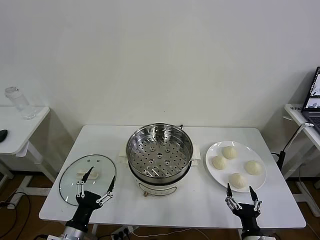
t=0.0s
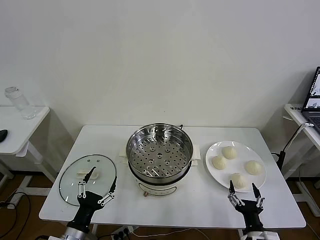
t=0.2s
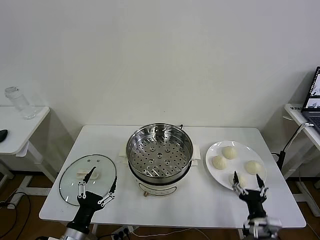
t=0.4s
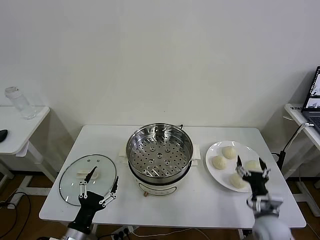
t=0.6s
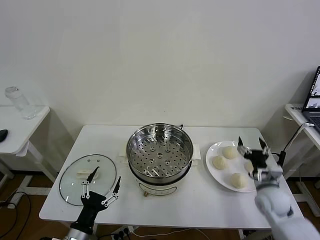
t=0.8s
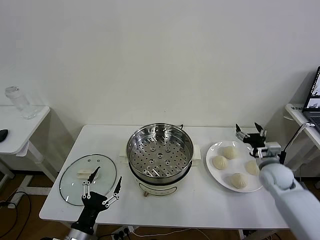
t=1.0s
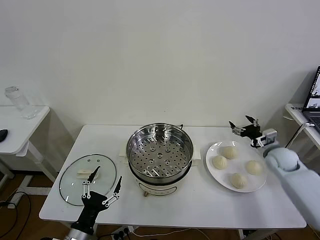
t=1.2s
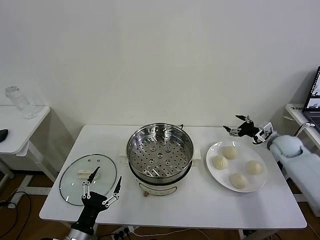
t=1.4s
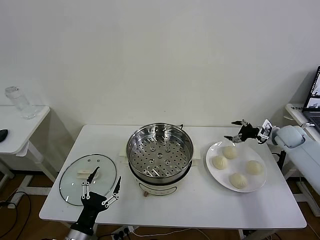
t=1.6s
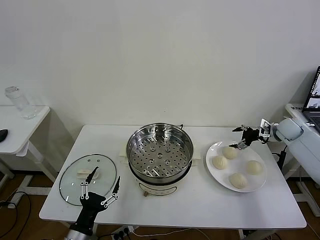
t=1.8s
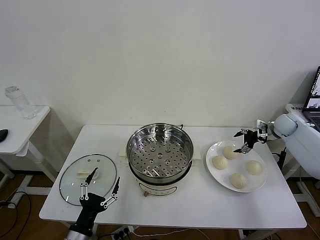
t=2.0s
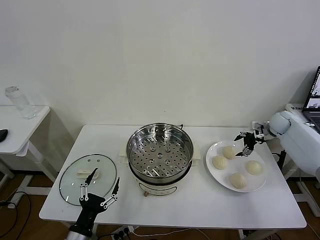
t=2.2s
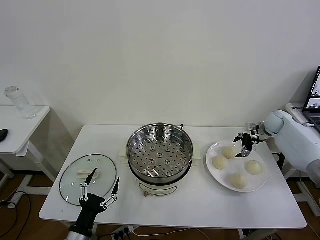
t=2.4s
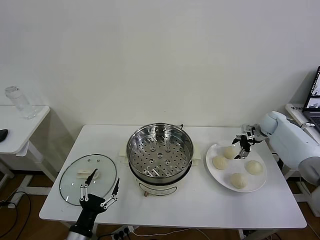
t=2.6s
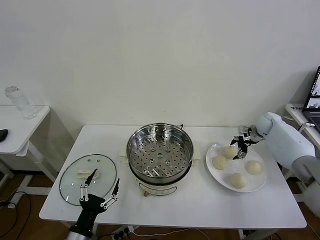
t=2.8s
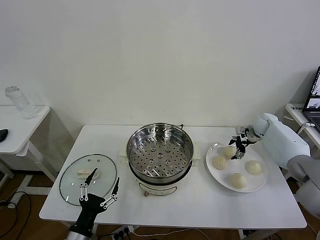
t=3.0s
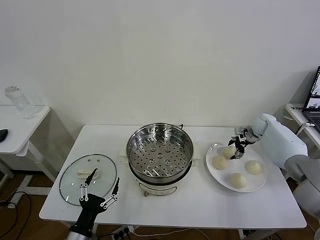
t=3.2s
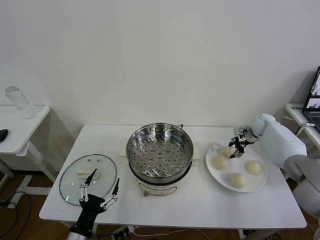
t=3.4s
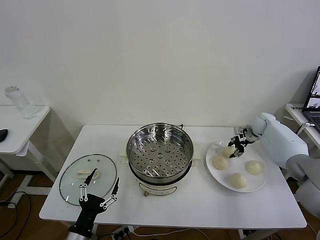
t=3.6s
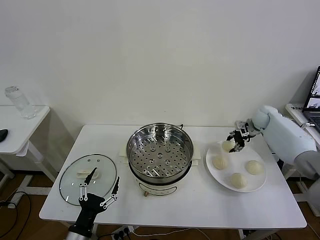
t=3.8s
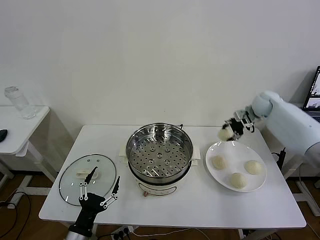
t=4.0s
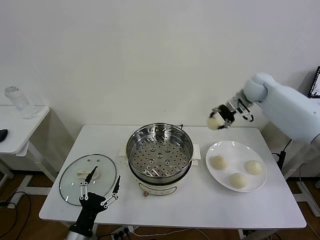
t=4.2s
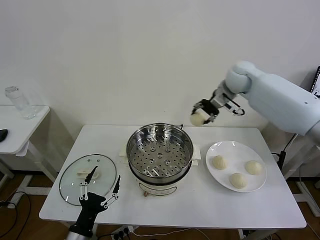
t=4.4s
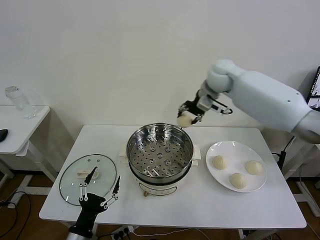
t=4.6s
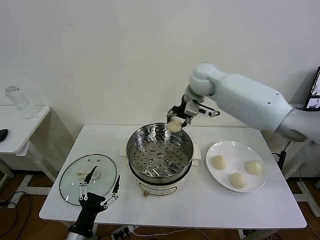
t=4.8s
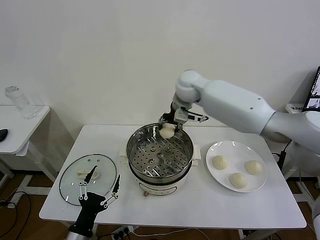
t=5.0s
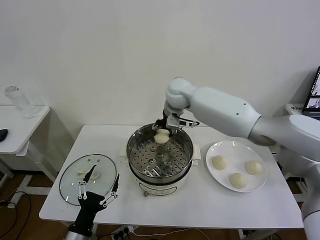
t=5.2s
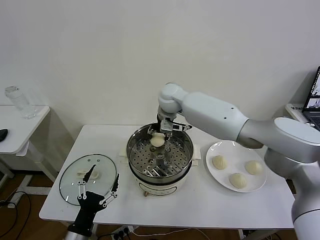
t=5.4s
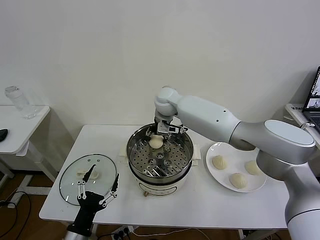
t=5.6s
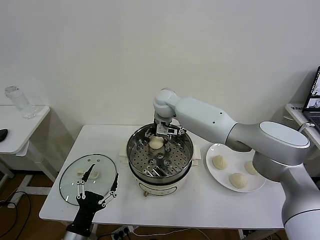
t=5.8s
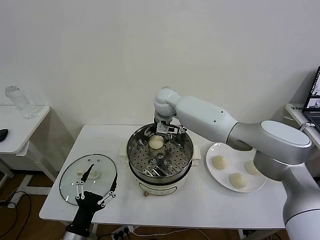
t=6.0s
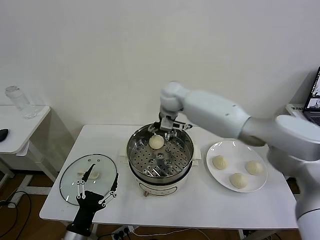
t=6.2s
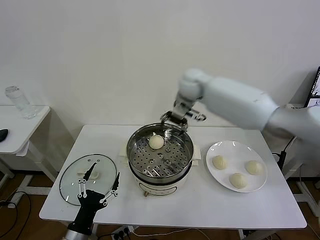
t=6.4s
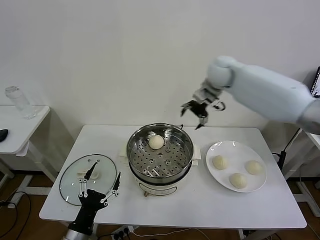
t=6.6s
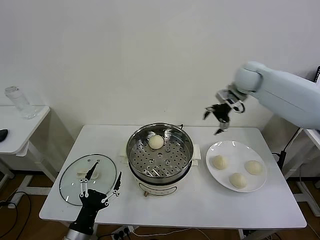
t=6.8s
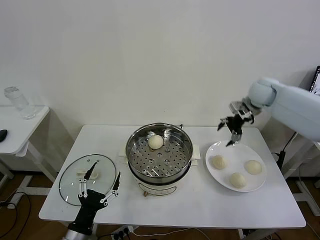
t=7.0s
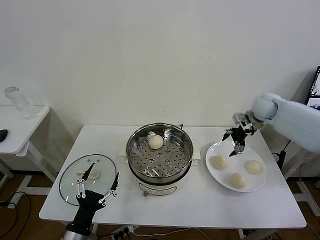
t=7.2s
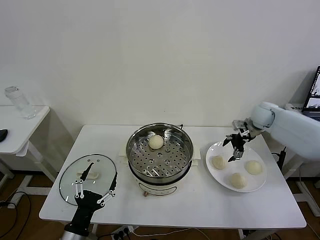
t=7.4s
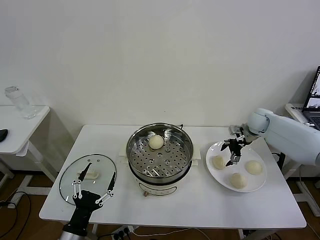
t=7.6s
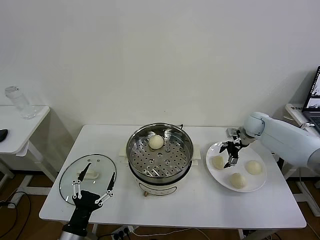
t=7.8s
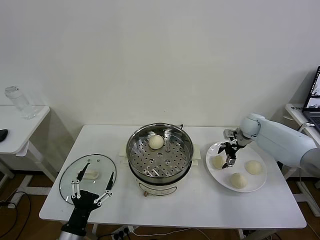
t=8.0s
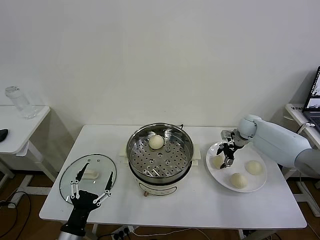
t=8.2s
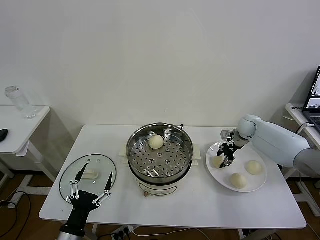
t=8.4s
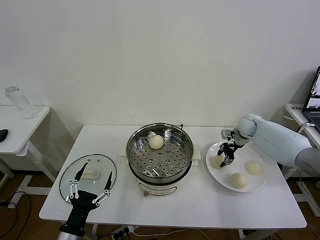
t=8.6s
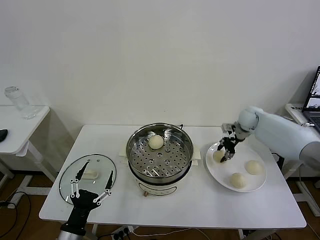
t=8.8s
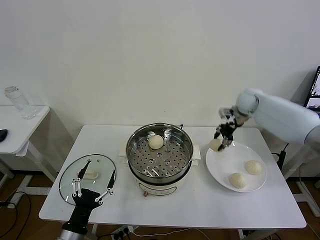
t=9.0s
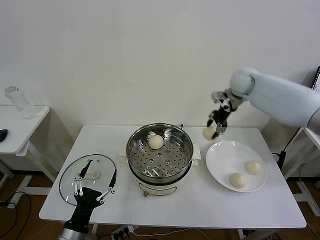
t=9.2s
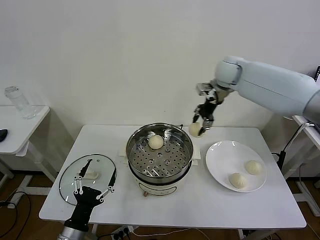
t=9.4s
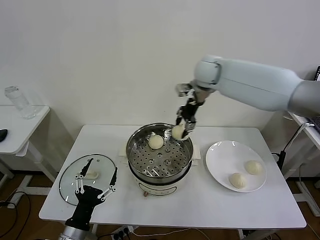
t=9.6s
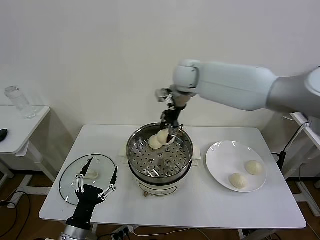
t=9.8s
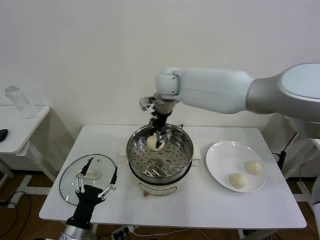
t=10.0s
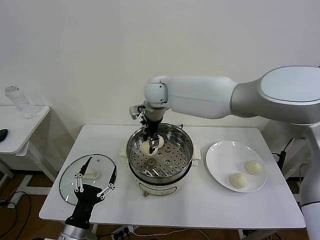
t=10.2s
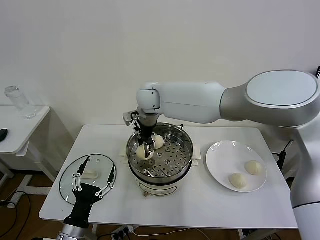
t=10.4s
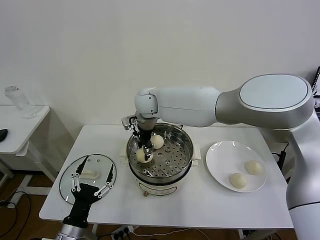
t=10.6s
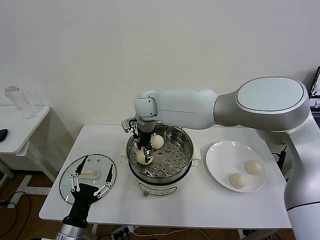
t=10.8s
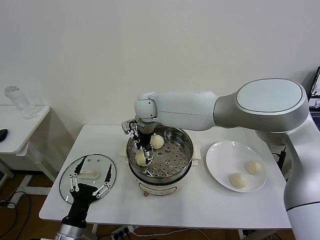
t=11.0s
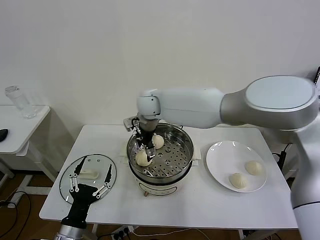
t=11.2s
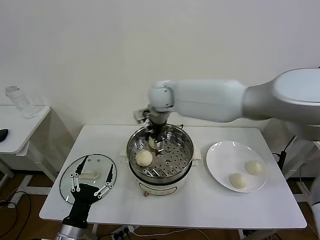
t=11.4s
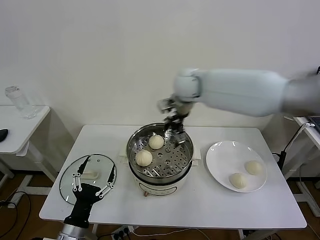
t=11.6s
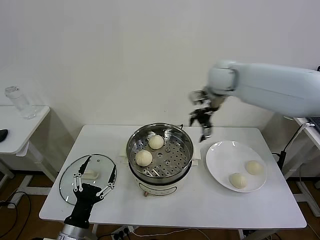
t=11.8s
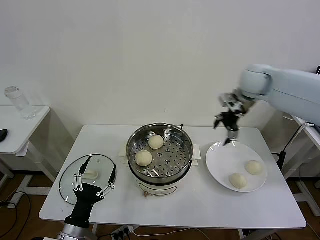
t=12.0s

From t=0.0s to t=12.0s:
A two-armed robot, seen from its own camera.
Task of the whole recording: take steamed baozi put them in steamer then cover it.
Step, from t=0.0s to t=3.4s: Grasp the baozi in the plate with right gripper.
Step, from t=3.6s to t=6.0s: Place the baozi on the steamer with right gripper.
Step, from t=6.2s to t=8.4s: Grasp the baozi in the plate with right gripper.
Step, from t=8.6s to t=11.0s: Place the baozi on the steamer with right gripper.
From t=1.6s to t=3.0s: The right gripper is displaced forward and to the left by roughly 10 cm.
From t=3.0s to t=4.4s: The right gripper is displaced upward and to the left by about 30 cm, and closes up.
From t=4.4s to t=6.0s: The right gripper heads to the left and downward, covering approximately 20 cm, and opens up.
From t=6.0s to t=7.6s: The right gripper heads to the right, covering about 35 cm.
From t=7.6s to t=9.0s: The right gripper goes some 15 cm upward and to the left, and closes.
From t=9.0s to t=10.4s: The right gripper is displaced to the left by about 35 cm.
From t=10.4s to t=12.0s: The right gripper goes about 35 cm to the right, and opens its fingers.

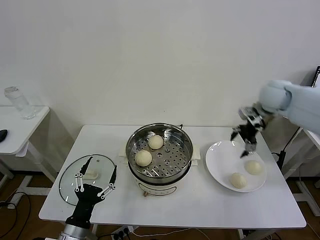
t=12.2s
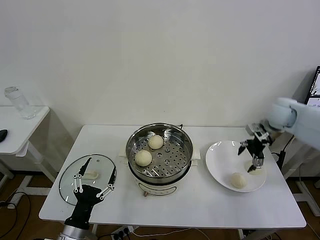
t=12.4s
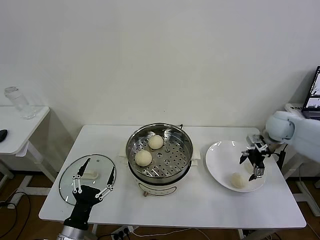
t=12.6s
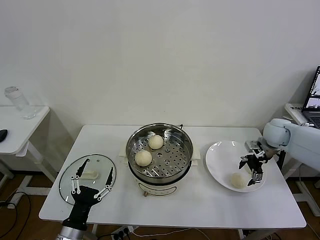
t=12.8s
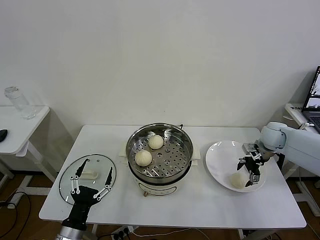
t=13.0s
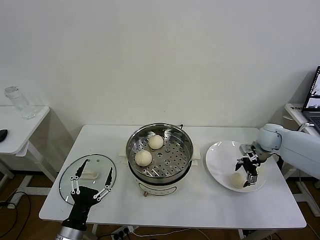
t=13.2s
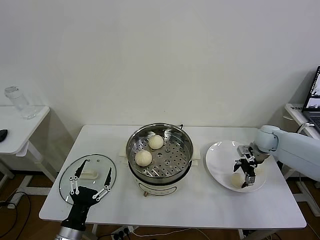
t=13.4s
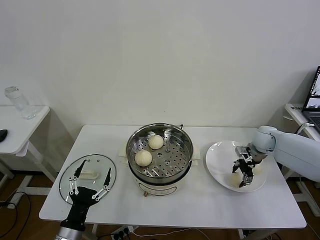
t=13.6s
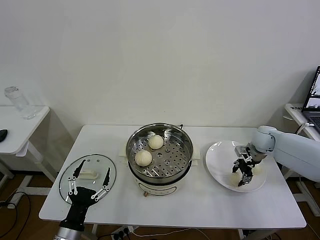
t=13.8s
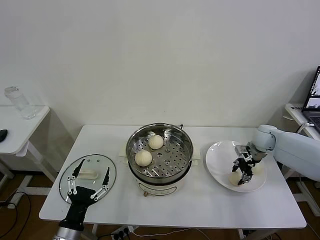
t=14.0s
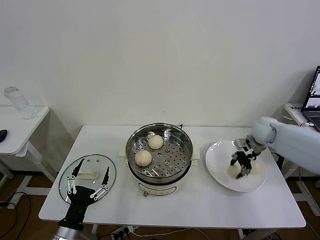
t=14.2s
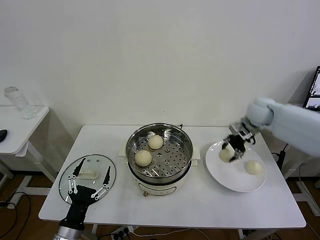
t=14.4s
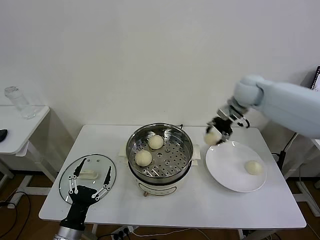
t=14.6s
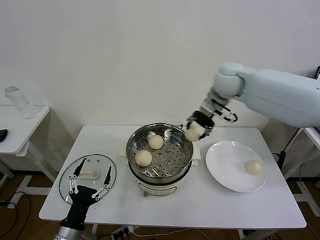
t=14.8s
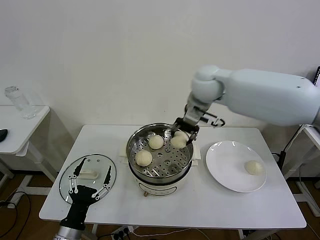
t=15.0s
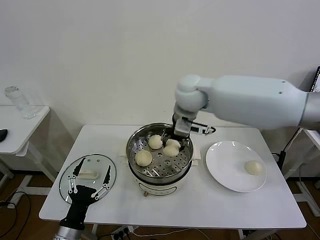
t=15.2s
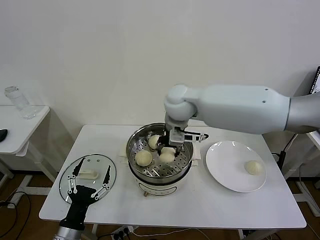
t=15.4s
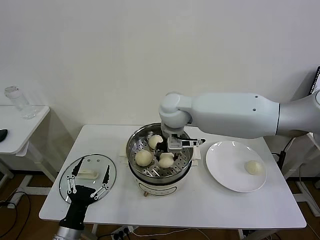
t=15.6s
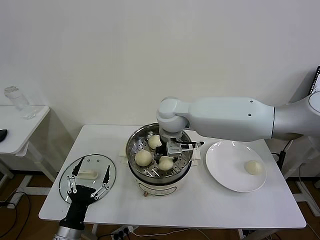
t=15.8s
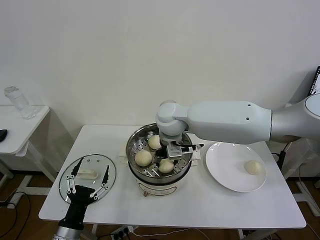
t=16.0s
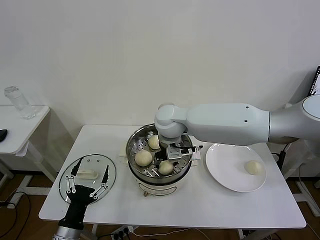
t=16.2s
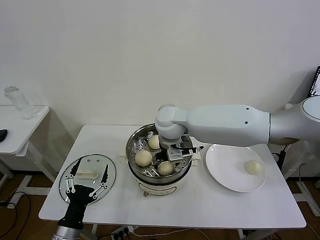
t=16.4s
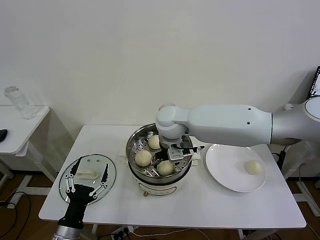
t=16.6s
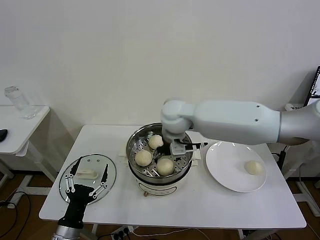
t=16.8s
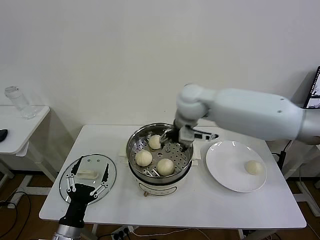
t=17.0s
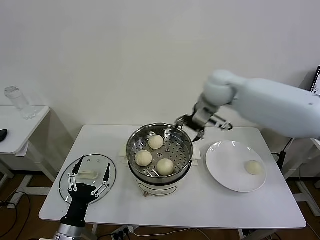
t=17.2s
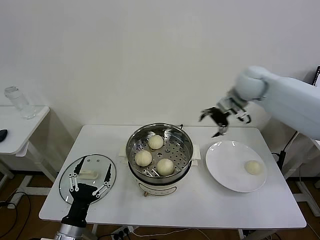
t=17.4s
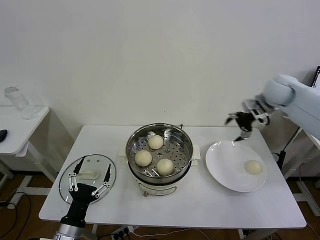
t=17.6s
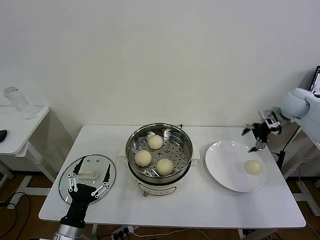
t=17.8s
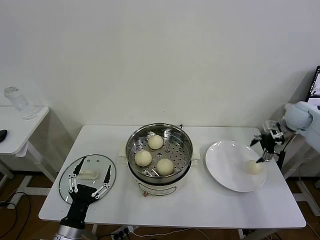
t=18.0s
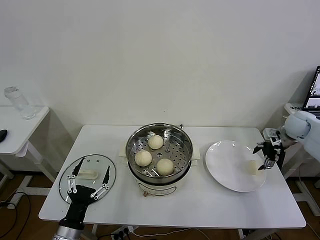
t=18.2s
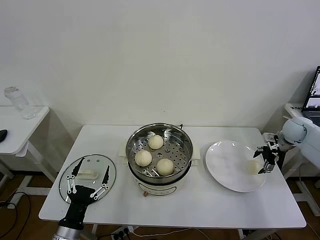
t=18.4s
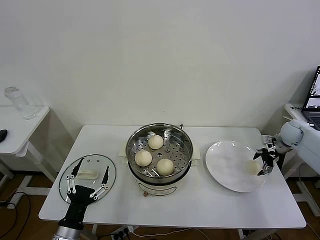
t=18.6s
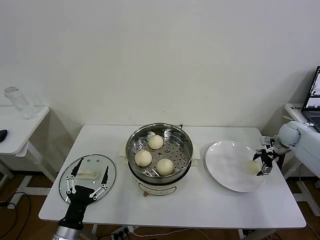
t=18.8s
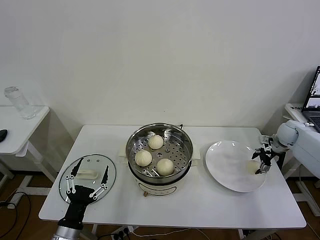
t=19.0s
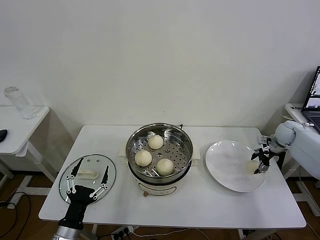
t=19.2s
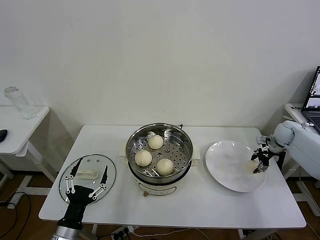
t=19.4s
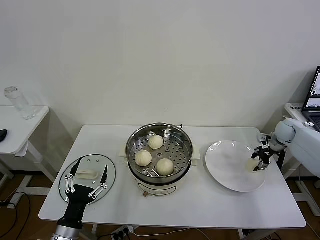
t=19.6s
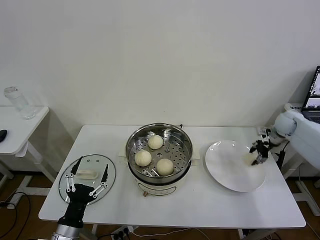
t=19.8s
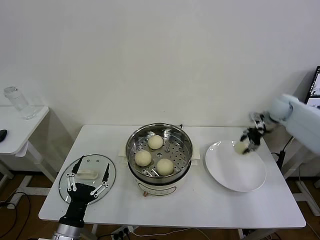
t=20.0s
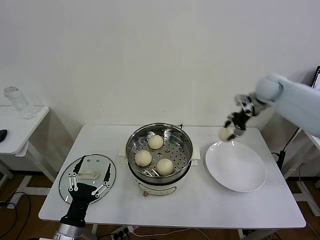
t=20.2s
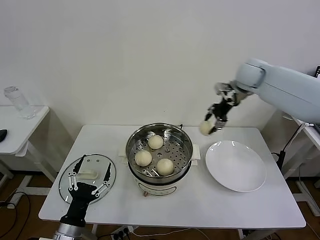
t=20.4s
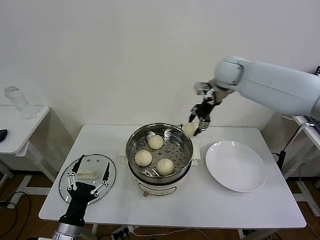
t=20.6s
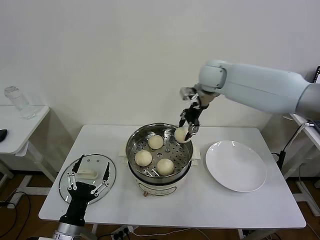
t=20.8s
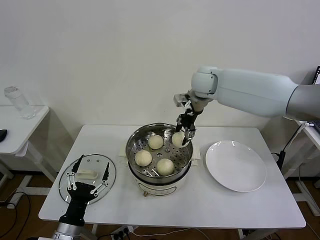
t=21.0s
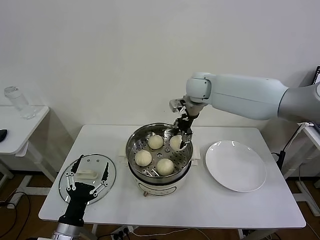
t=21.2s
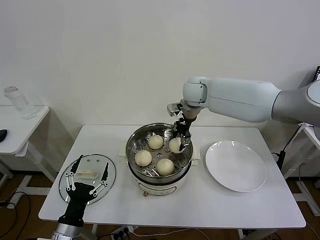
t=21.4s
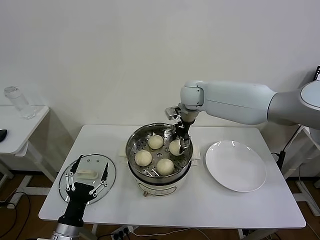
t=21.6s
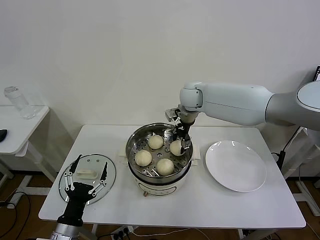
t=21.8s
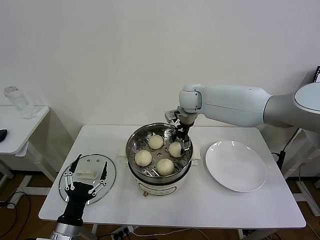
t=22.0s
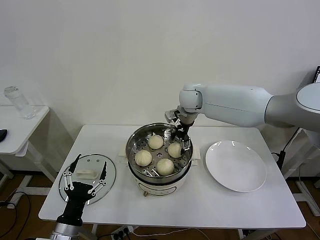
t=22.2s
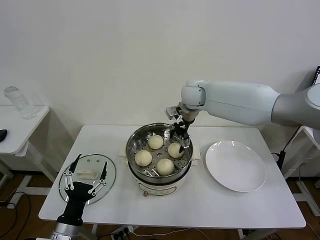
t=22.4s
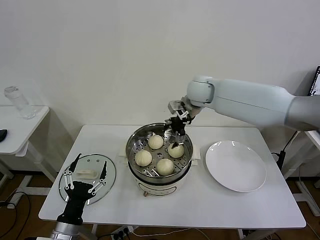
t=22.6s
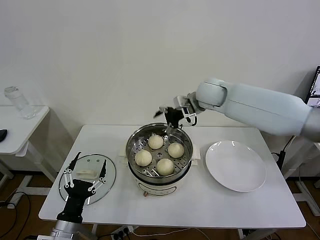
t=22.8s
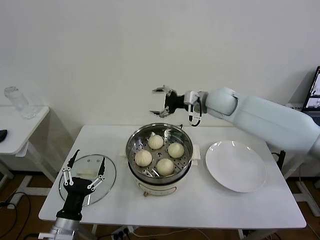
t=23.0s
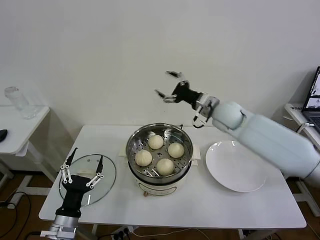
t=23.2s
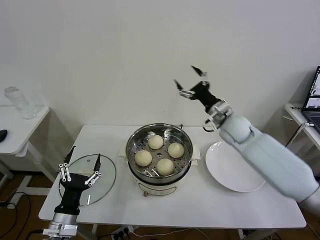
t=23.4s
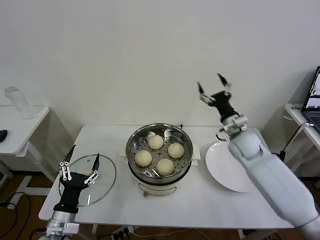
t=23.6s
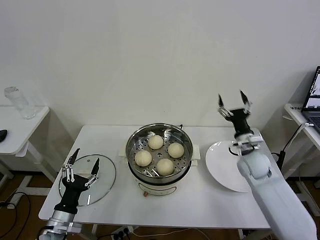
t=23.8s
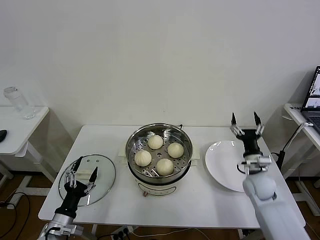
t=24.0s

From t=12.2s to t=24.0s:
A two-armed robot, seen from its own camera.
Task of the whole recording: take steamed baozi put them in steamer then cover it.
Step, from t=12.2s to t=13.8s: Grasp the baozi in the plate with right gripper.
Step, from t=14.0s to t=16.4s: Place the baozi on the steamer with right gripper.
Step, from t=16.6s to t=19.4s: Grasp the baozi in the plate with right gripper.
Step, from t=19.6s to t=22.2s: Place the baozi on the steamer with right gripper.
From t=12.2s to t=13.6s: The right gripper is displaced downward by some 15 cm, and closes.
From t=13.6s to t=15.2s: The right gripper is displaced to the left and upward by about 40 cm, and closes.
From t=15.2s to t=16.6s: The right gripper heads downward, covering about 5 cm, and opens its fingers.
From t=16.6s to t=18.2s: The right gripper moves to the right, roughly 50 cm.
From t=18.2s to t=19.6s: The right gripper goes some 5 cm downward, and closes.
From t=19.6s to t=21.0s: The right gripper shifts some 40 cm to the left and upward.
From t=21.0s to t=22.6s: The right gripper opens its fingers.
From t=22.6s to t=24.0s: The left gripper goes some 10 cm to the left and downward. The right gripper moves downward, to the right and backward, about 40 cm.
